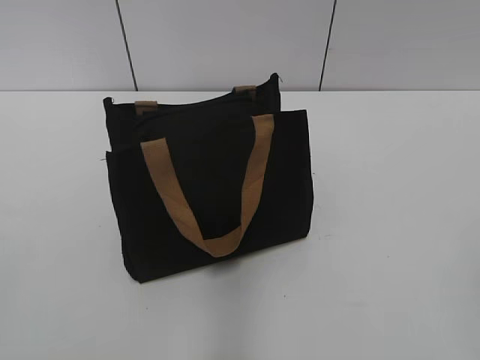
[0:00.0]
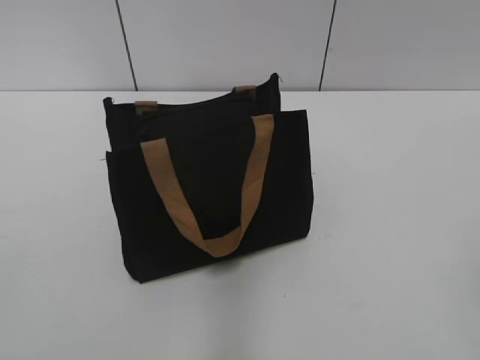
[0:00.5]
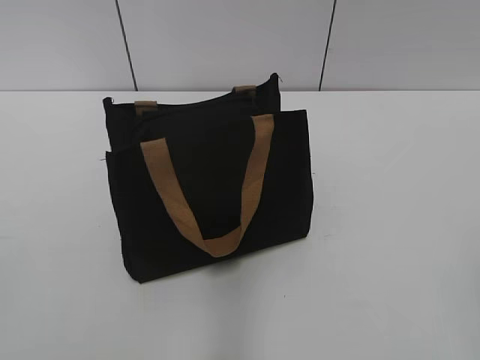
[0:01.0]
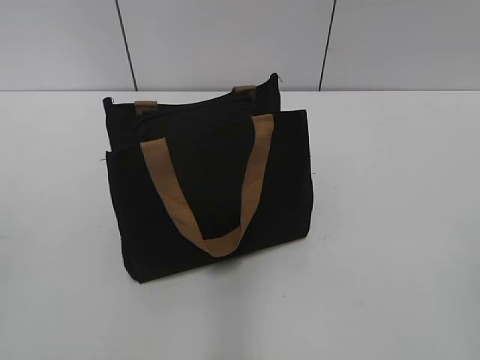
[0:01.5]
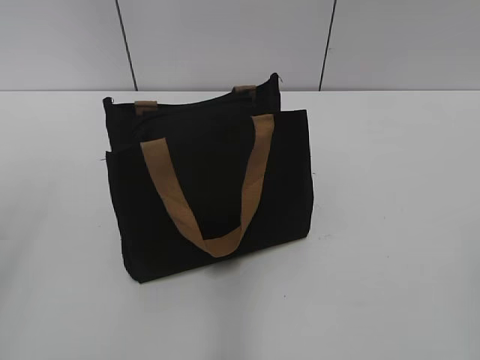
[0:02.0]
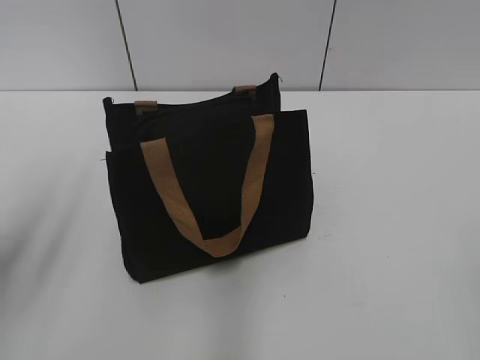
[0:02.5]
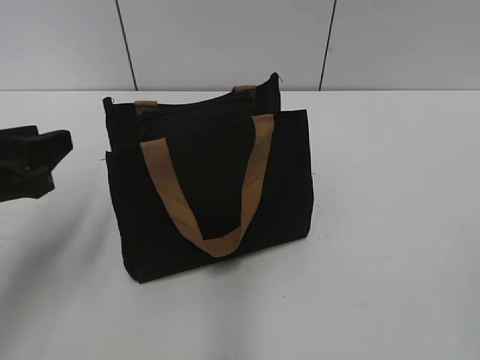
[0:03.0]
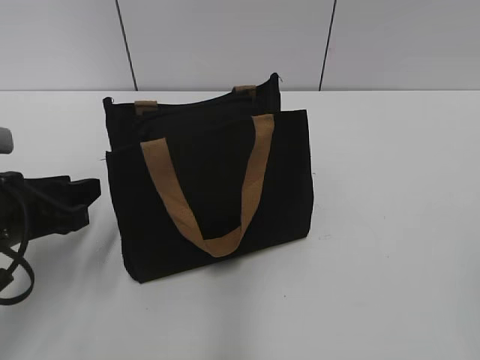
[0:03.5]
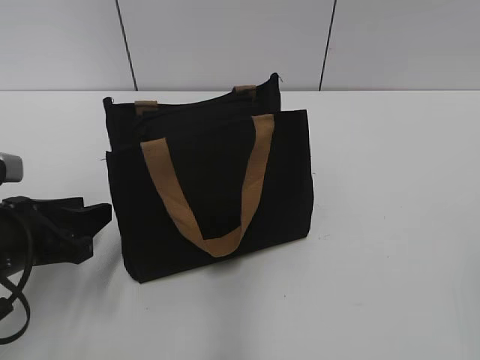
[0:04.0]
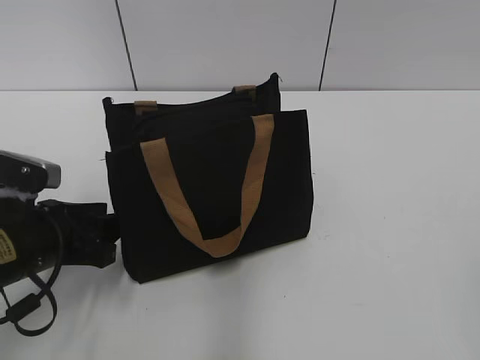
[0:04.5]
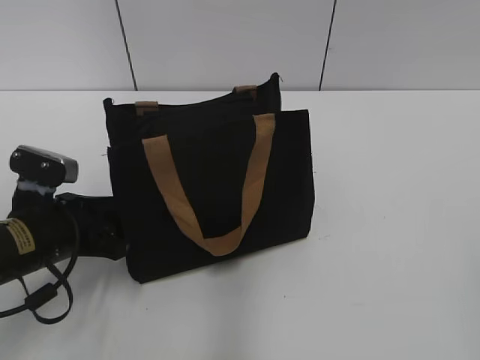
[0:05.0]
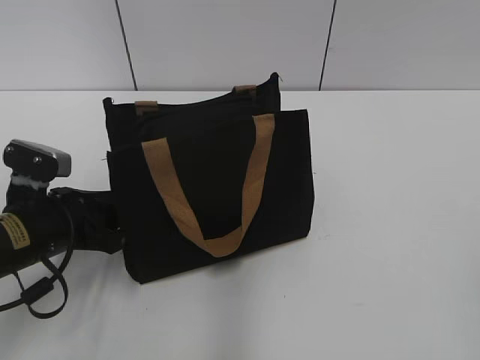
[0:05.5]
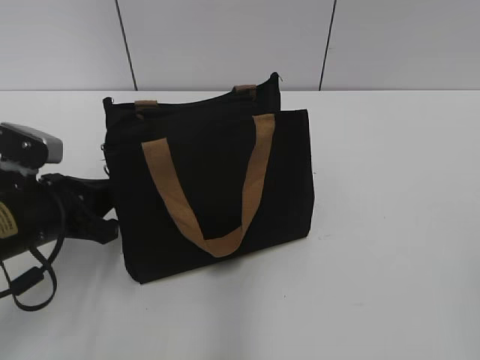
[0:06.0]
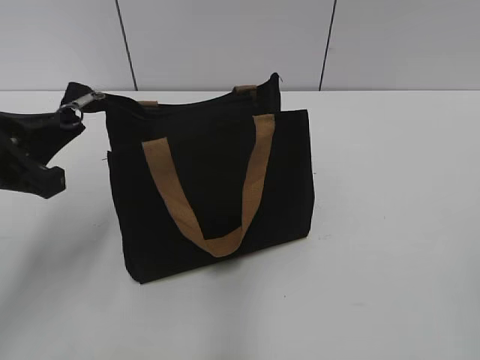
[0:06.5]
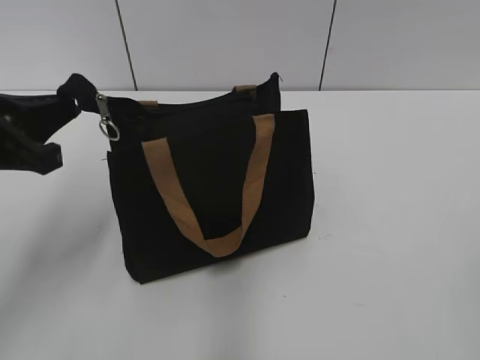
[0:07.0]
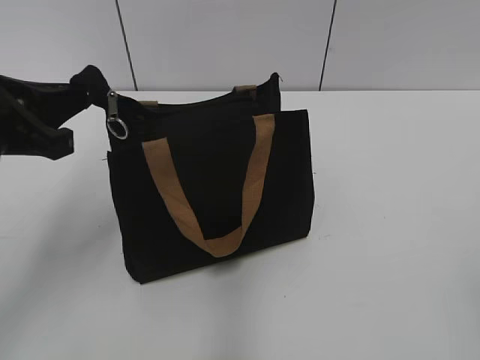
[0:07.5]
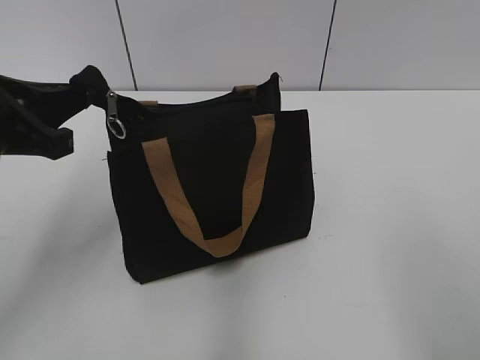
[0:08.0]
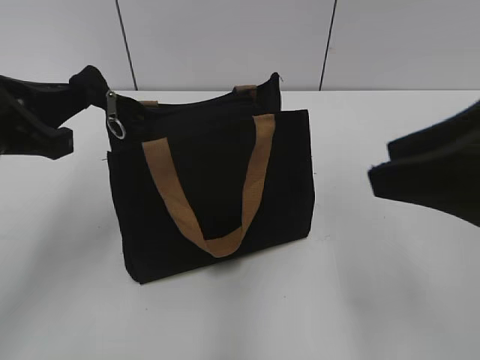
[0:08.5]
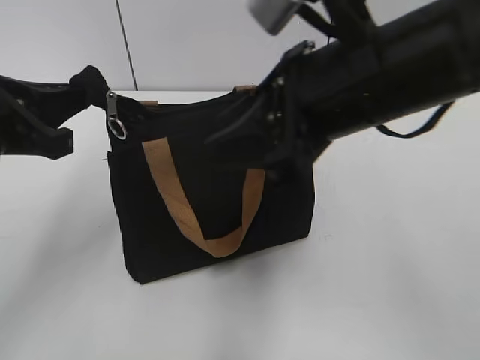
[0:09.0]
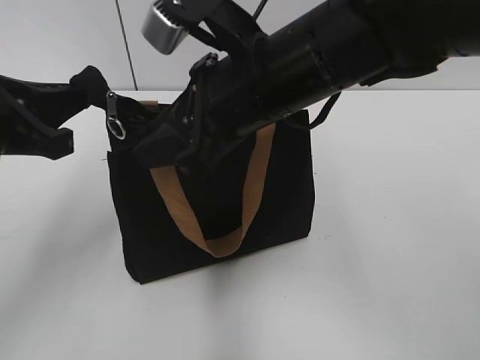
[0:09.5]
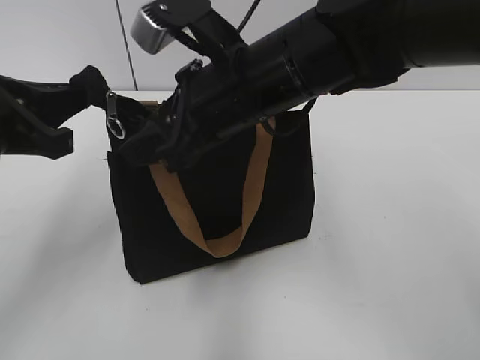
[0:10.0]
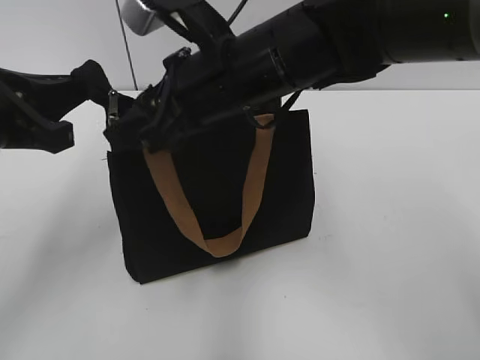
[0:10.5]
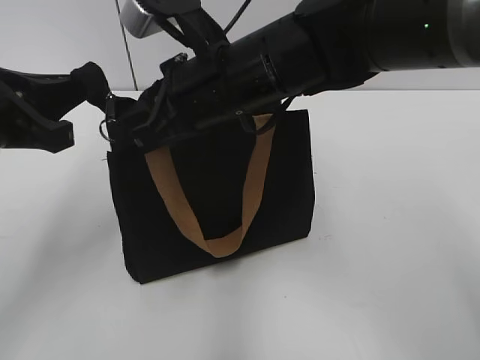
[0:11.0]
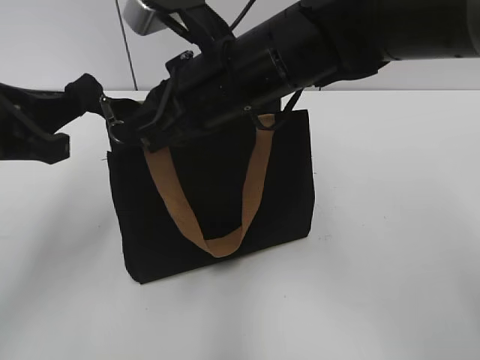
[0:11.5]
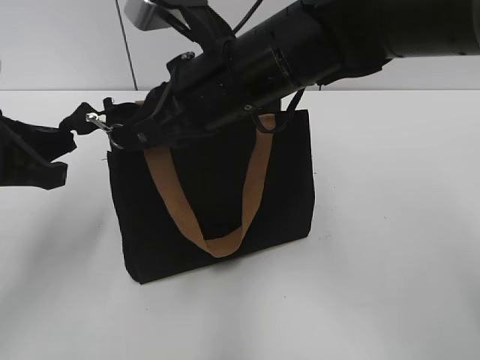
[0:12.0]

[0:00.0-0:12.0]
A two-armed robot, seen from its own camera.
0:02.0 to 0:04.0: The left gripper shifts approximately 25 cm downward and forward.
0:04.0 to 0:06.0: The left gripper closes up.
0:06.0 to 0:08.0: The left gripper goes roughly 15 cm upward. Meanwhile the right gripper is displaced forward by approximately 5 cm.
0:08.0 to 0:10.0: The right gripper shifts roughly 35 cm forward and to the left.
0:10.0 to 0:12.0: The right gripper closes.

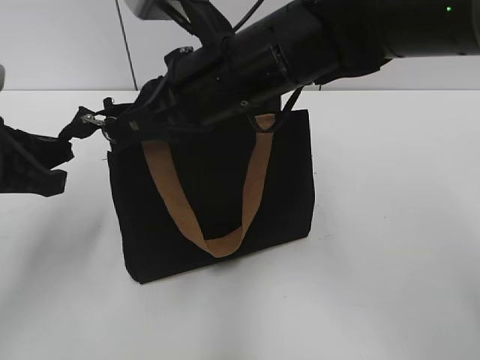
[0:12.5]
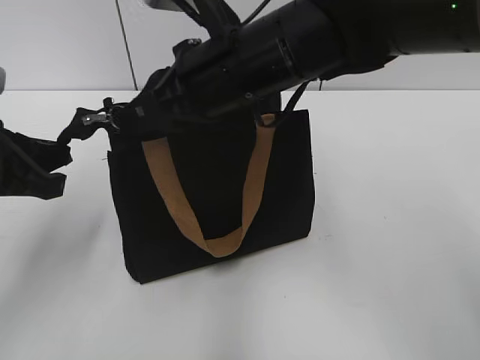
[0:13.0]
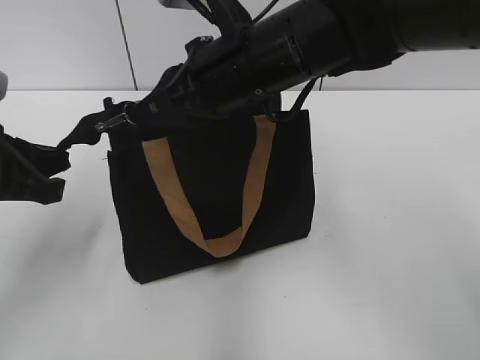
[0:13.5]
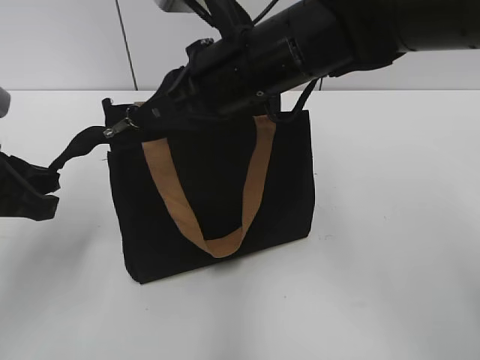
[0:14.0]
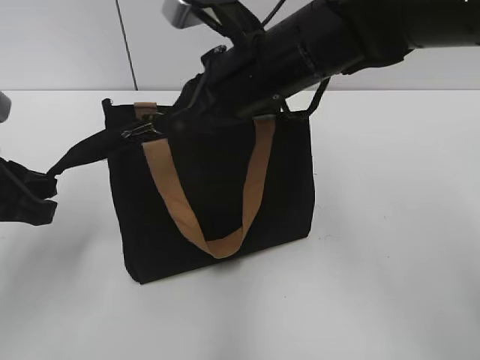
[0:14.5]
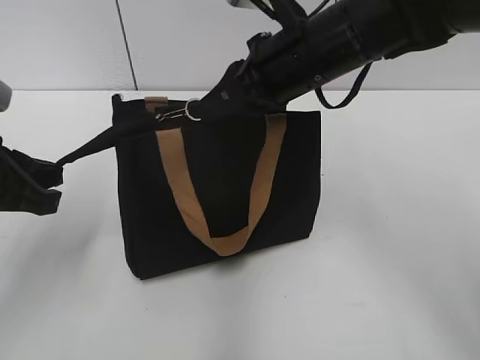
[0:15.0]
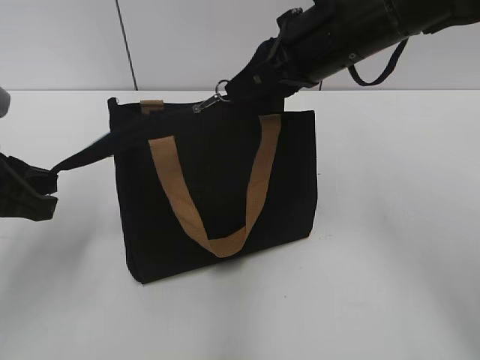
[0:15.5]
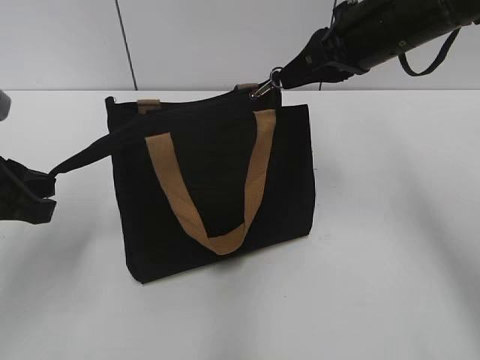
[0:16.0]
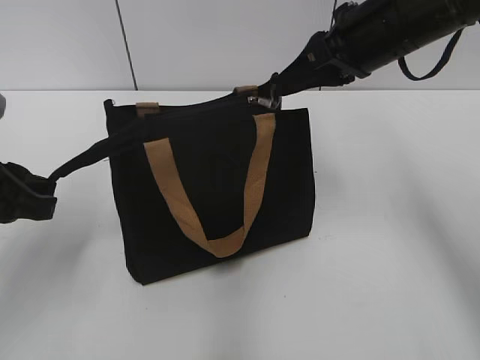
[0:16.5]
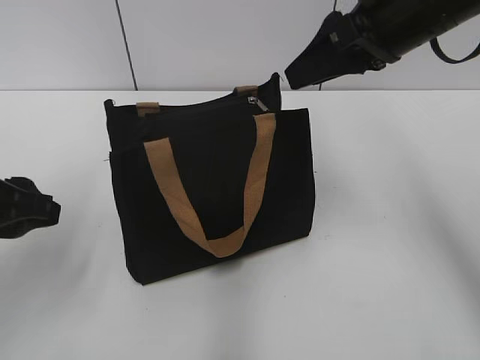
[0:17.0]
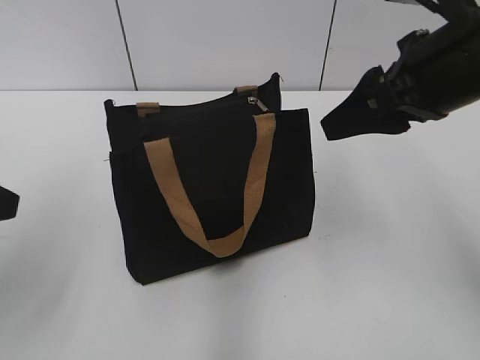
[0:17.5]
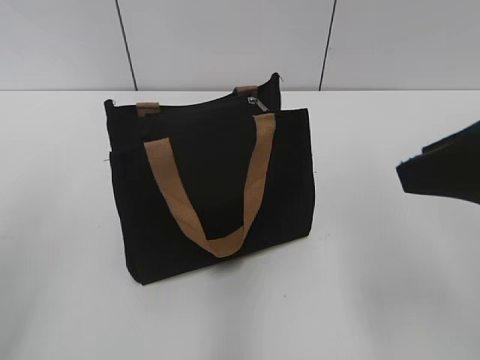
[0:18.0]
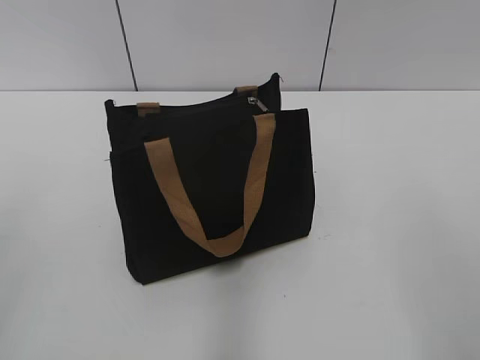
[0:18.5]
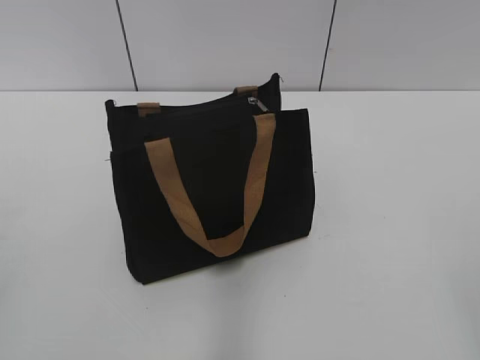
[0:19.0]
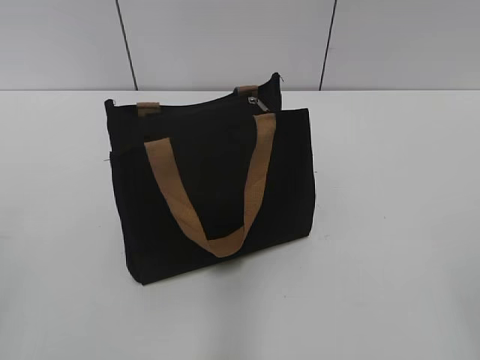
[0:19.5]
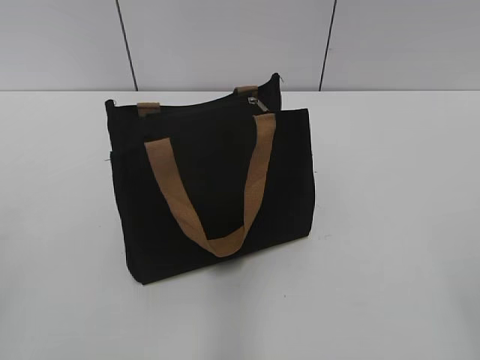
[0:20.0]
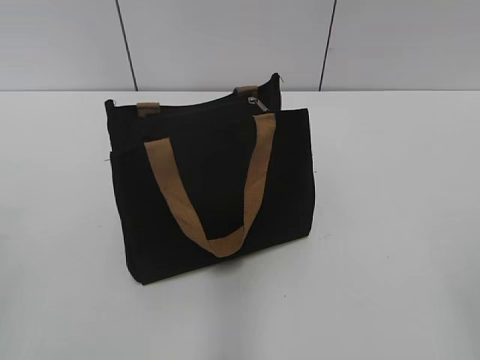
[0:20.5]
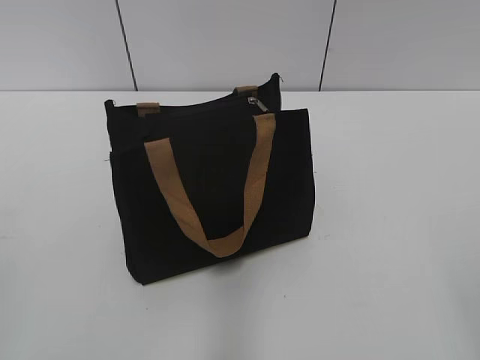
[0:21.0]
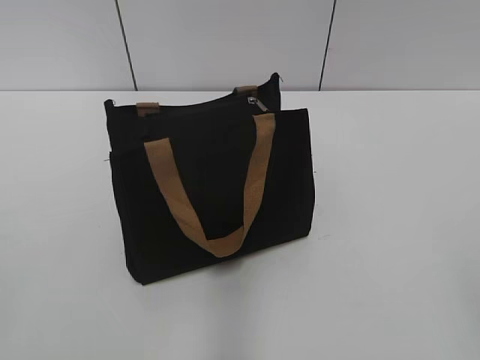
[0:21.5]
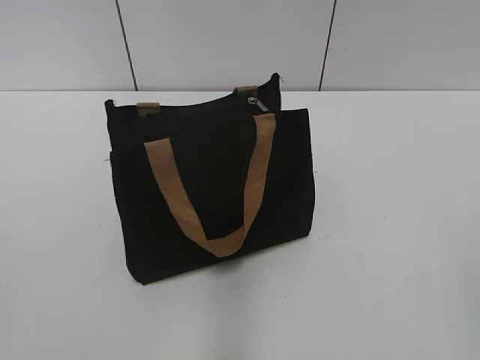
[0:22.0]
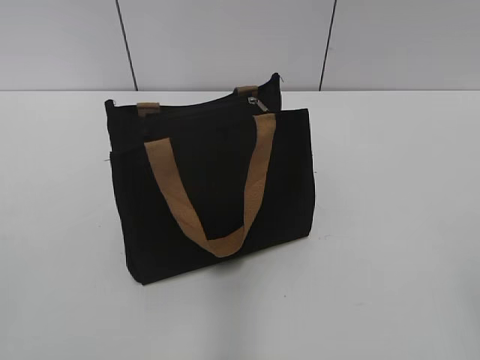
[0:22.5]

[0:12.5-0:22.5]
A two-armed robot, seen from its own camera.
Step, 0:12.5 to 0:16.0: Zip up the bag with your right hand.
0:12.5 to 0:14.5: The grippers stay close to where they were, moving slightly.
0:14.5 to 0:16.5: The right gripper is displaced to the right by some 10 cm.
0:16.5 to 0:18.5: The right gripper goes about 30 cm backward, and opens; the left gripper heads backward and upward, covering roughly 15 cm, and opens its fingers.

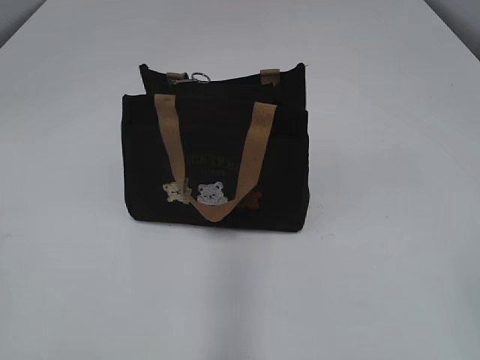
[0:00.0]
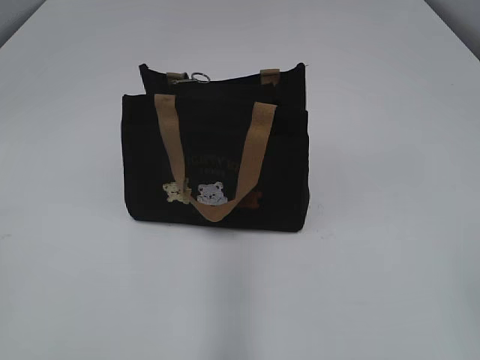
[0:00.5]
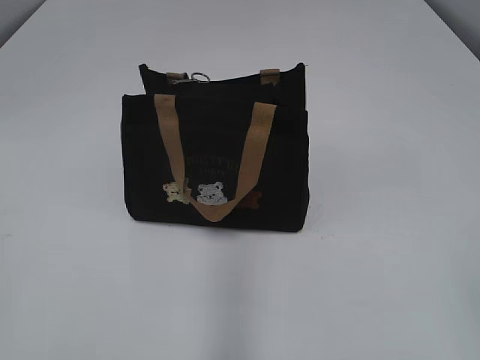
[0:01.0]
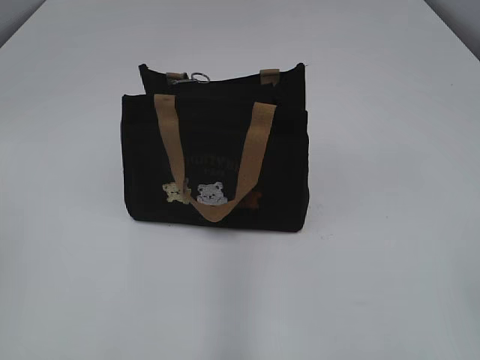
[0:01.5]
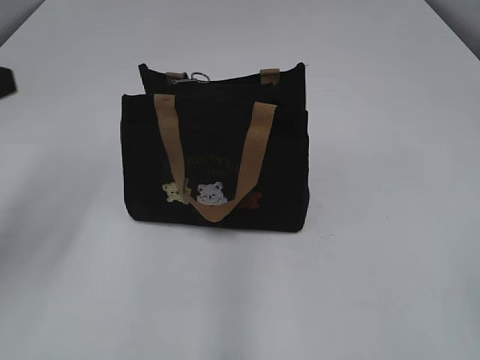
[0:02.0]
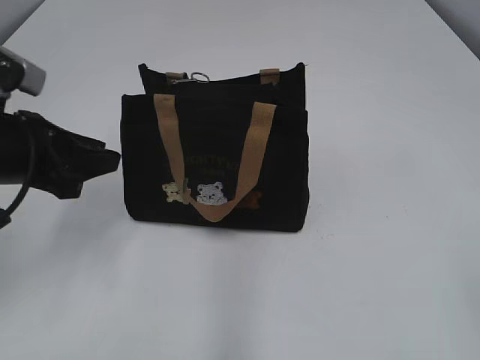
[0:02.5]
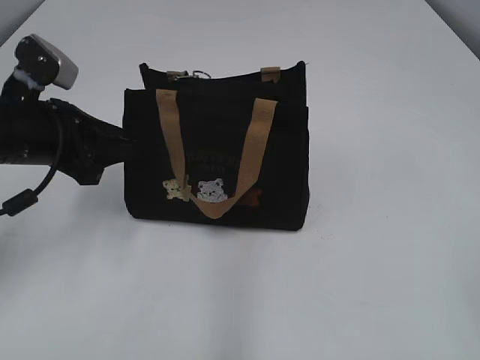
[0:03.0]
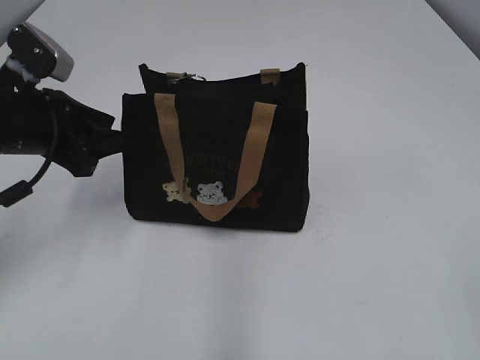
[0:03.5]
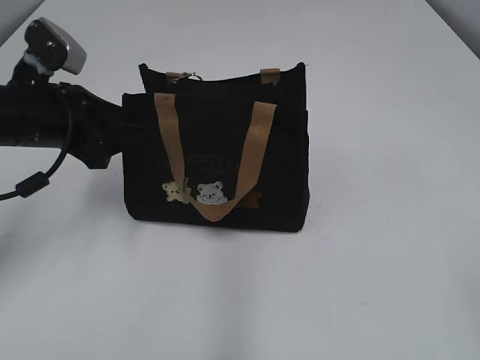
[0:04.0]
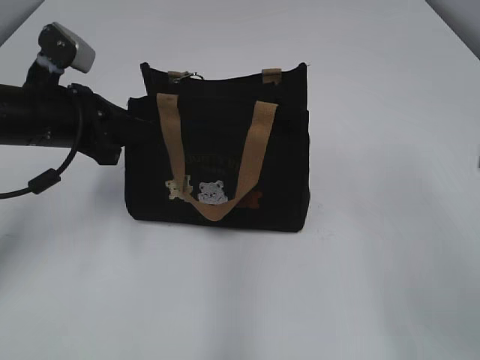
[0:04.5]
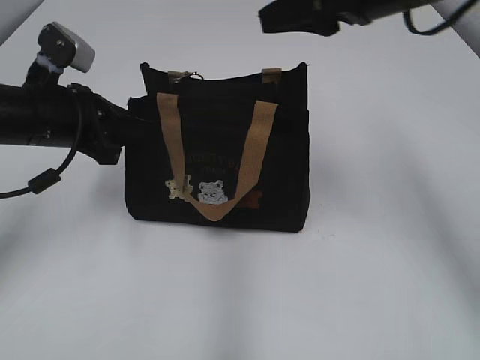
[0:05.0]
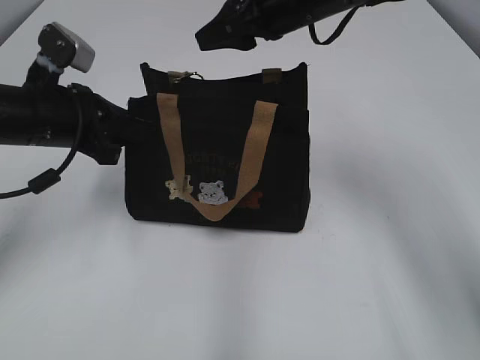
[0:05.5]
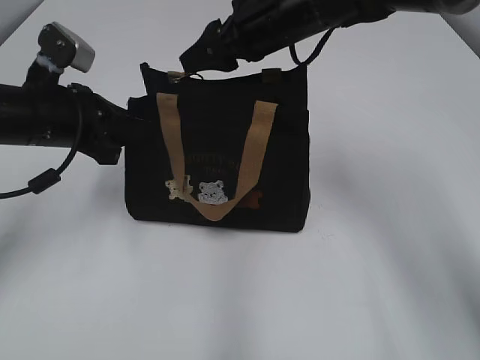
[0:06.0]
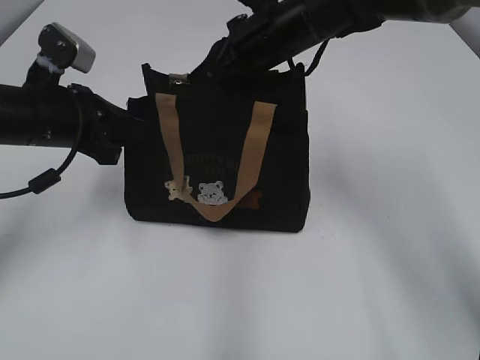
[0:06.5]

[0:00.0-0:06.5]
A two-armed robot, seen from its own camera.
0:02.0 to 0:04.5: The right gripper shifts roughly 10 cm forward; the left gripper shifts roughly 15 cm forward, downward and to the right, and closes its fingers.
0:04.5 to 0:06.5: The right gripper heads forward and to the left, covering approximately 40 cm, and closes up.
